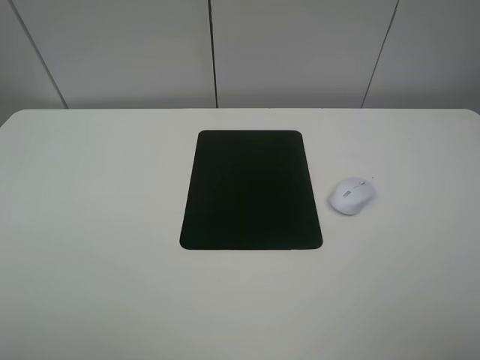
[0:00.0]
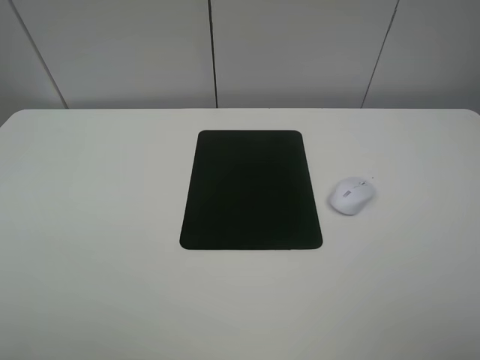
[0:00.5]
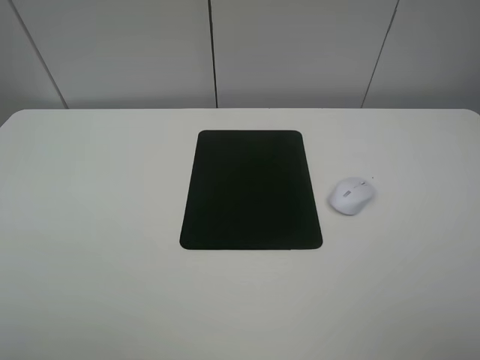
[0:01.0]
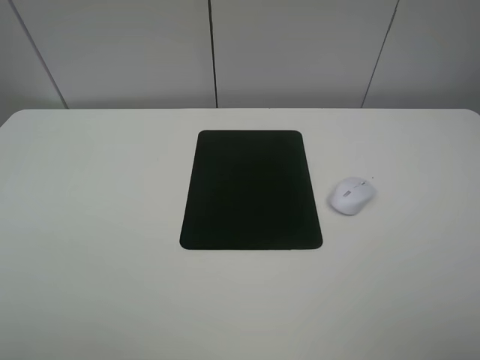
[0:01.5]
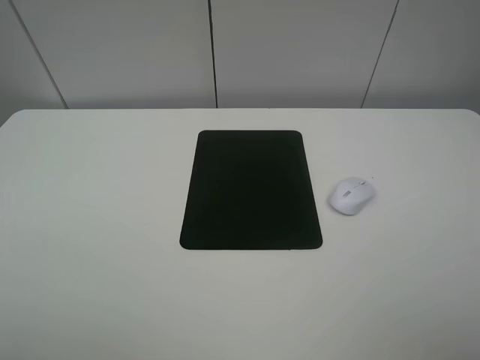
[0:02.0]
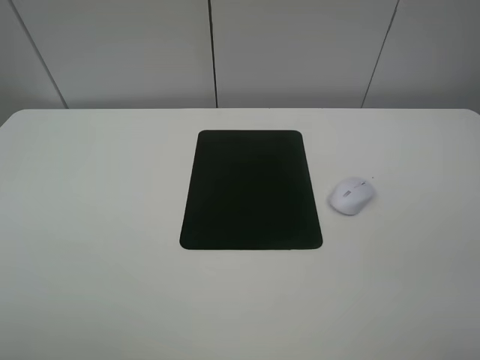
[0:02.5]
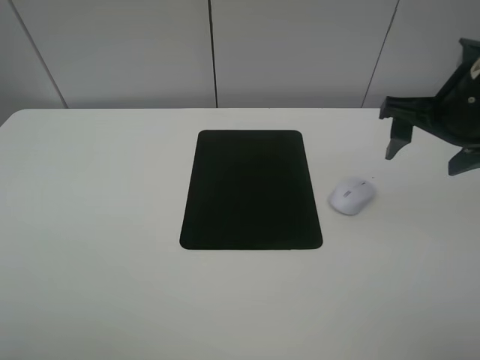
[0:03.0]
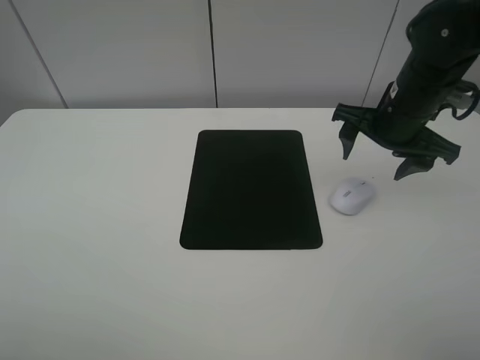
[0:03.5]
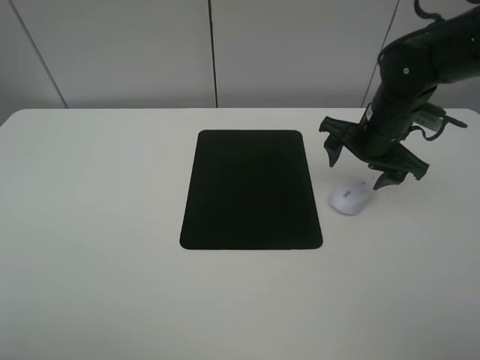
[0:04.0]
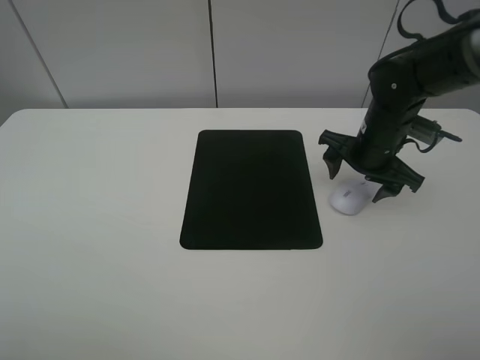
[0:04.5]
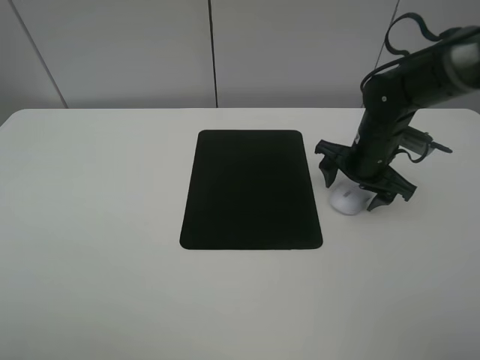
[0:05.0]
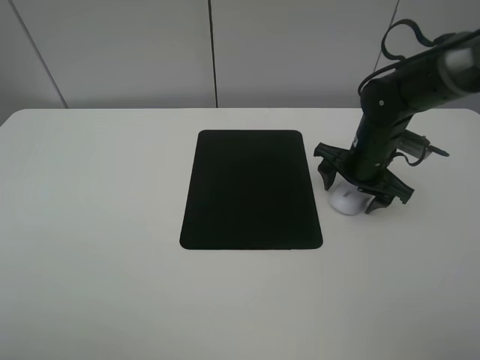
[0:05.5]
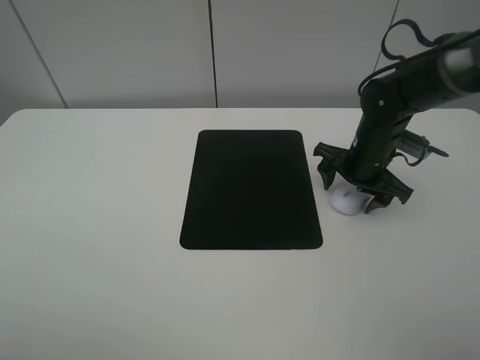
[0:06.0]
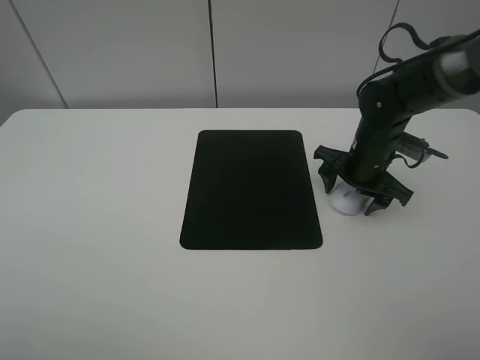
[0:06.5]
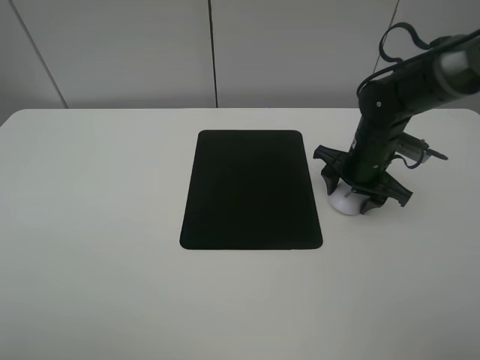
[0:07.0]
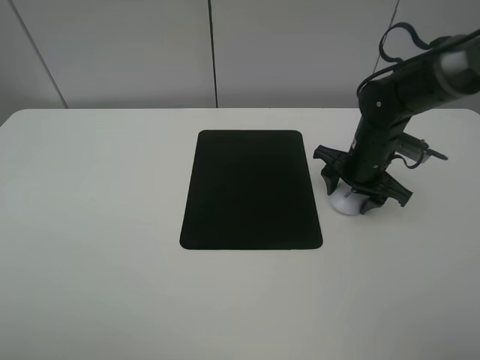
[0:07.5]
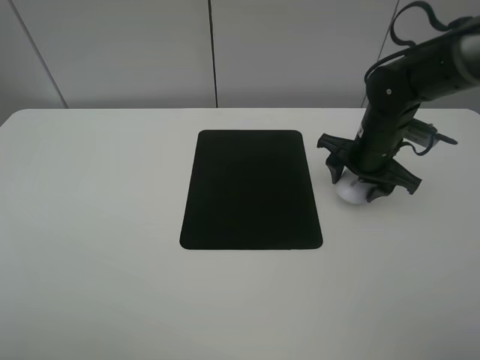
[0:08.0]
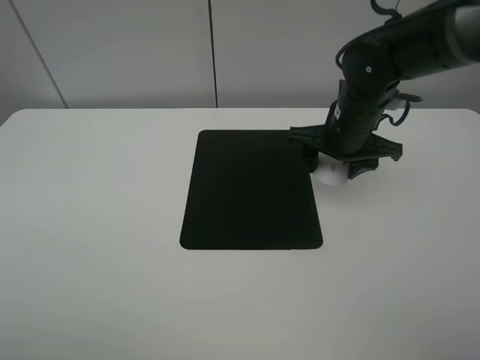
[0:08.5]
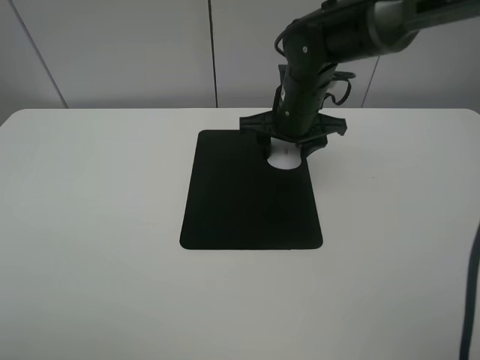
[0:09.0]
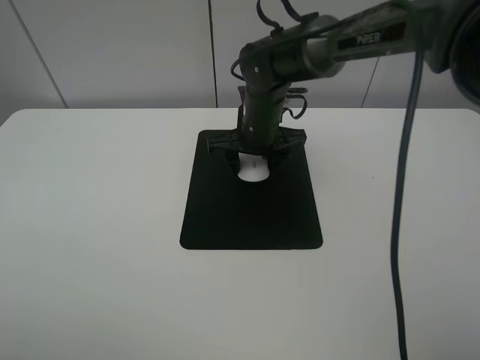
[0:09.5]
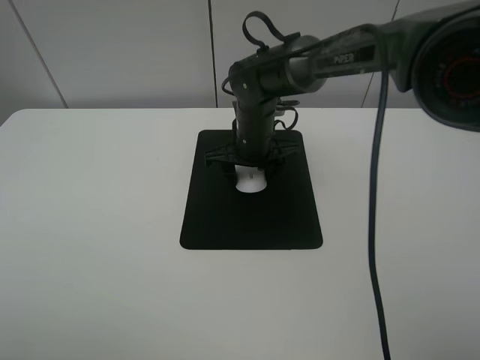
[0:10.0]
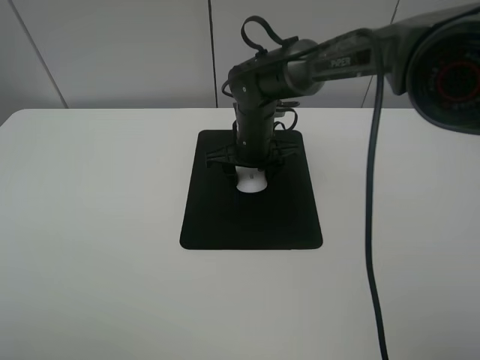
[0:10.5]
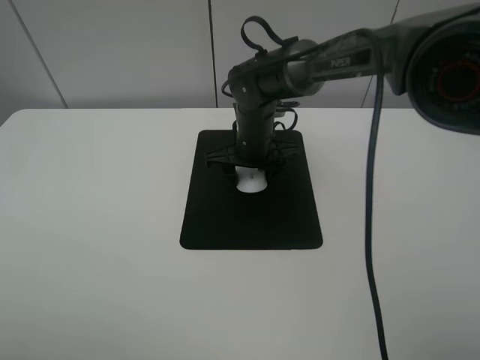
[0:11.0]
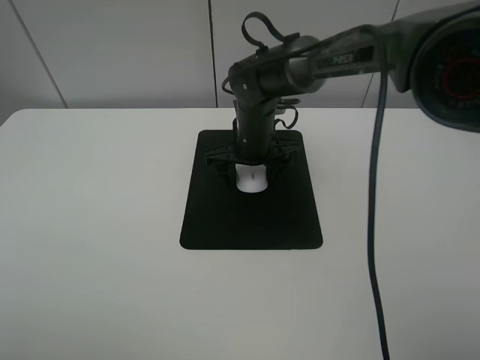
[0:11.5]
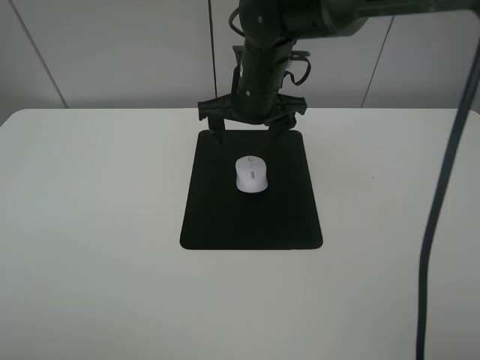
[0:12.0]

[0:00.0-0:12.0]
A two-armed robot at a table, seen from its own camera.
Step, 0:00.0 to 0:07.0: Grasp the mouse with the right gripper.
Step, 0:07.5 to 0:11.0: Place the mouse on the mouse mat with the right gripper.
0:00.0 to 0:02.0: The two grippers keep their place.
0:02.0 to 0:04.0: The right gripper is displaced forward and downward by approximately 35 cm.
0:04.0 to 0:06.0: There are only small adjustments of the grippers.
0:06.0 to 0:08.0: The right gripper closes.
0:08.0 to 0:10.0: The right gripper heads to the left, covering roughly 20 cm.
0:10.0 to 0:12.0: The right gripper shifts roughly 10 cm upward, and opens its fingers.

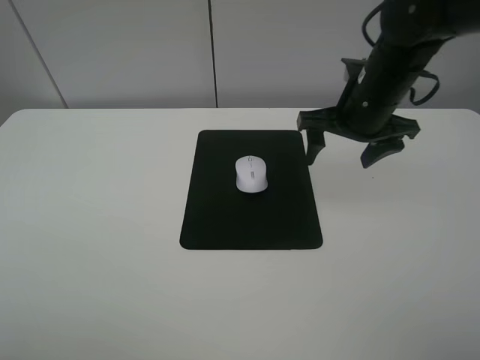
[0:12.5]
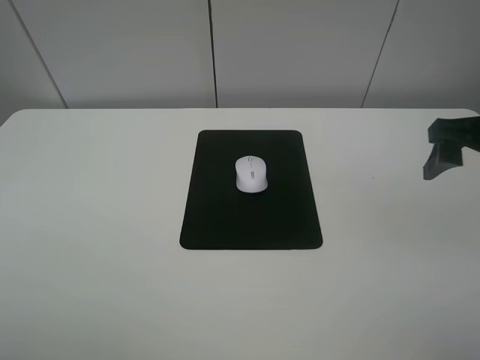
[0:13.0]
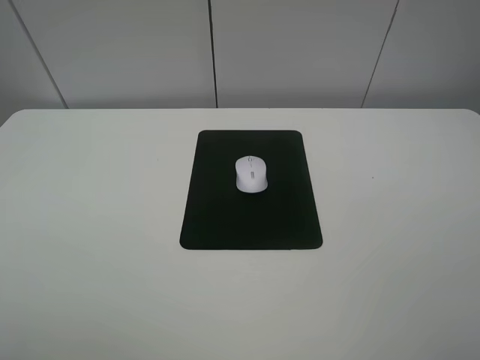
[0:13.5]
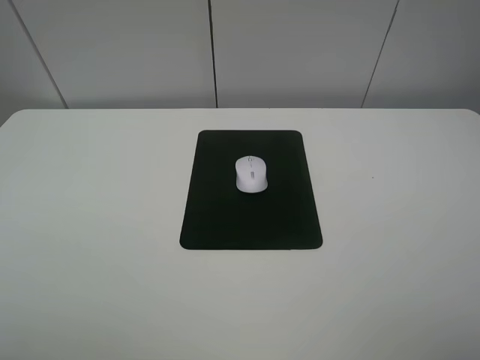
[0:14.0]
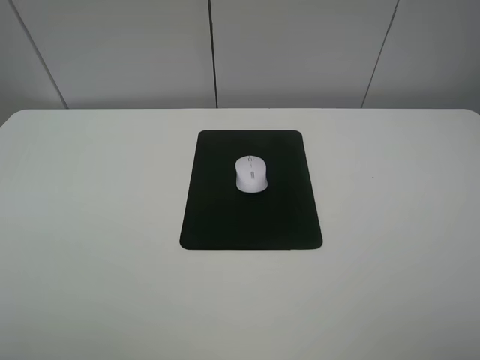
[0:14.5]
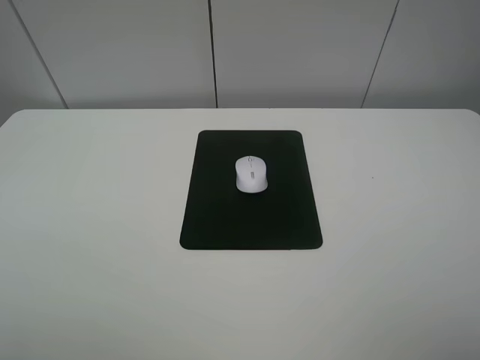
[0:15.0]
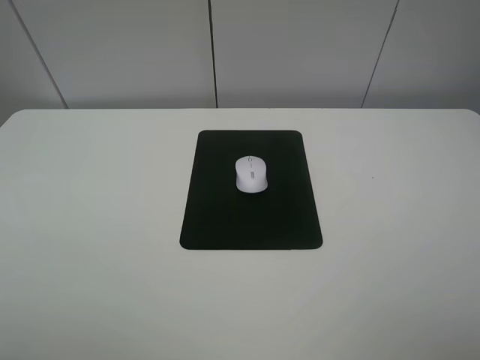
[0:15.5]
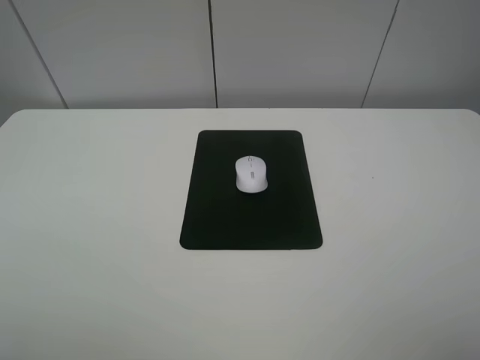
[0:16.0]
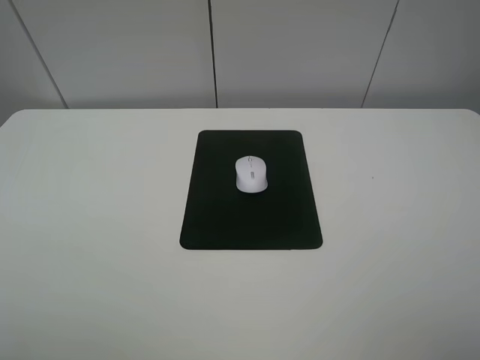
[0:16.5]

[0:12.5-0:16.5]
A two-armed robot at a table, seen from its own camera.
0:12.5 to 0:14.5: The right gripper shifts about 35 cm backward.

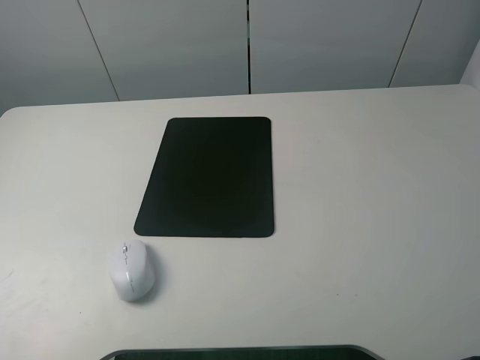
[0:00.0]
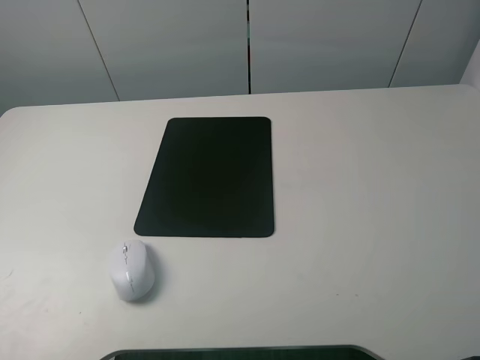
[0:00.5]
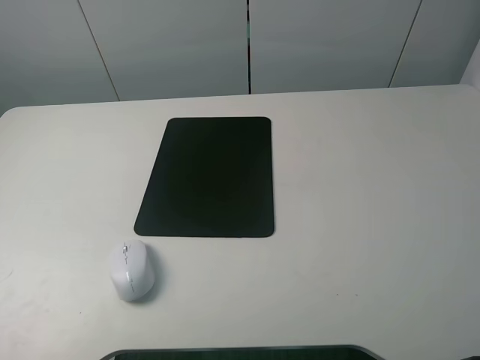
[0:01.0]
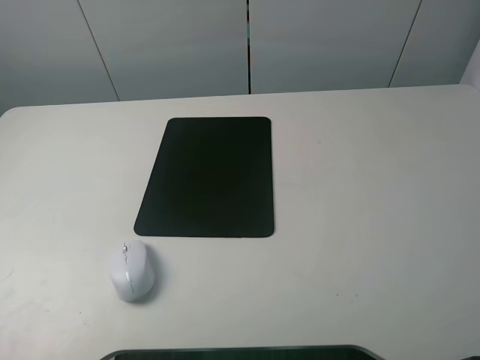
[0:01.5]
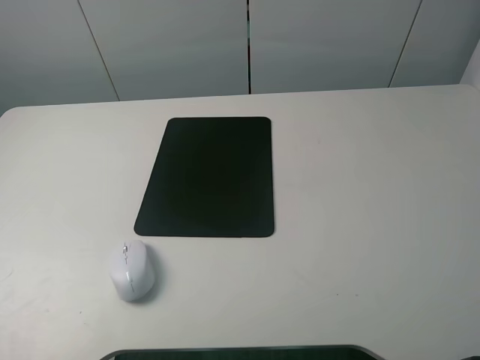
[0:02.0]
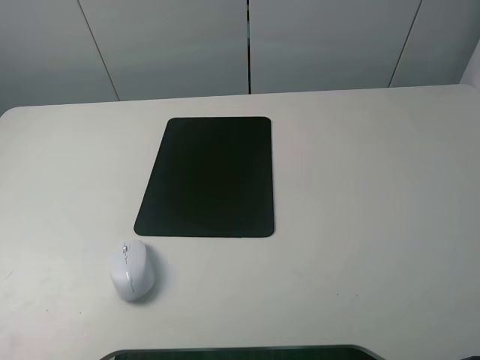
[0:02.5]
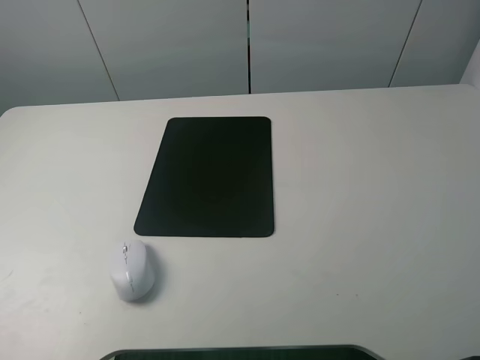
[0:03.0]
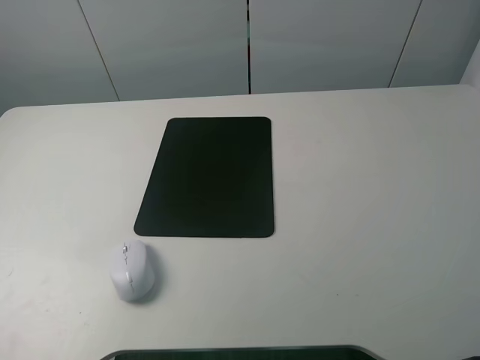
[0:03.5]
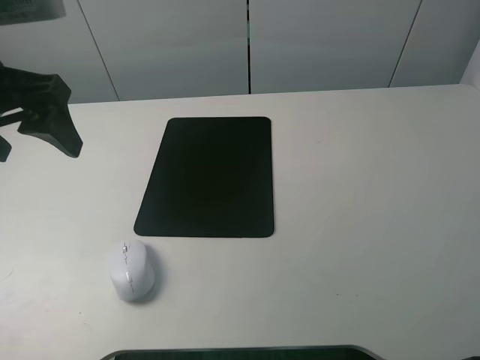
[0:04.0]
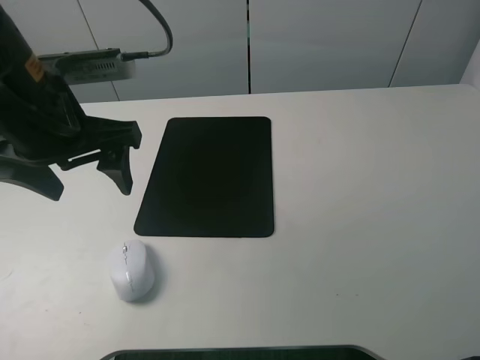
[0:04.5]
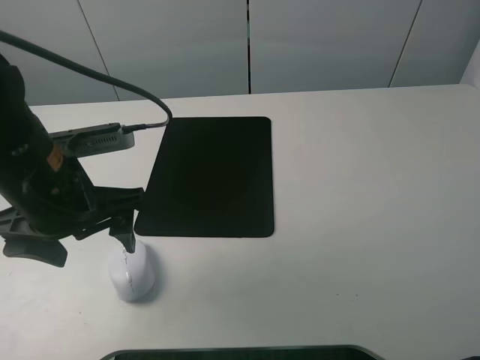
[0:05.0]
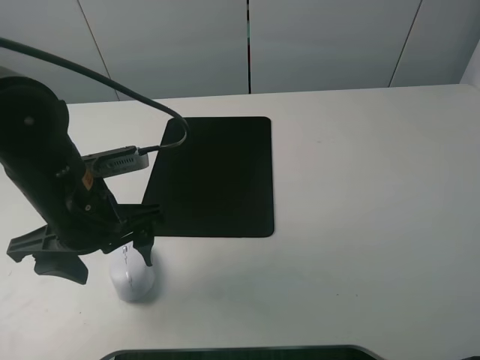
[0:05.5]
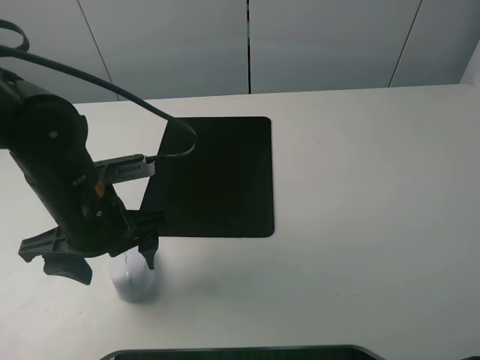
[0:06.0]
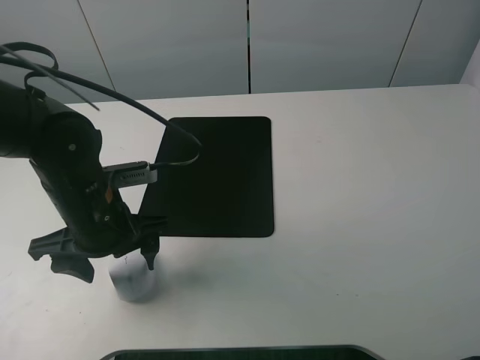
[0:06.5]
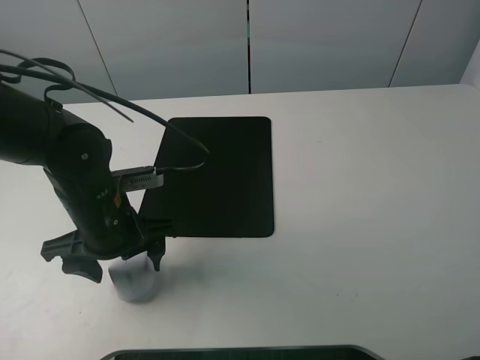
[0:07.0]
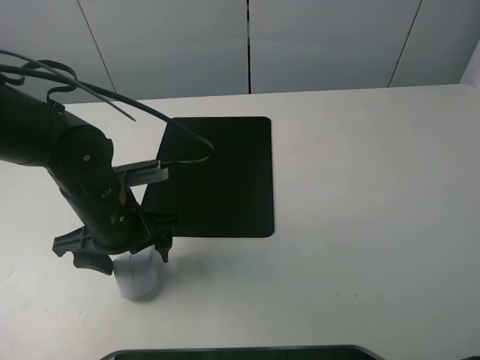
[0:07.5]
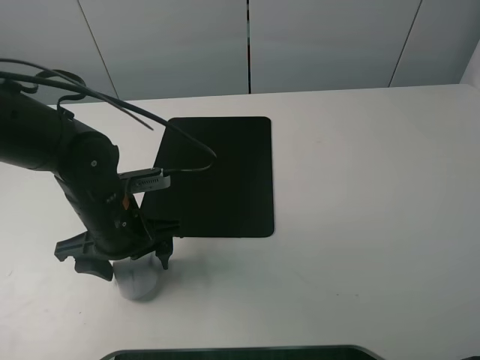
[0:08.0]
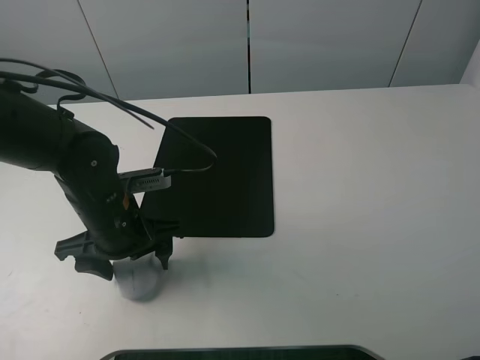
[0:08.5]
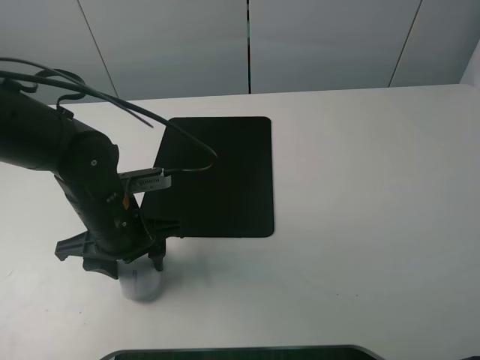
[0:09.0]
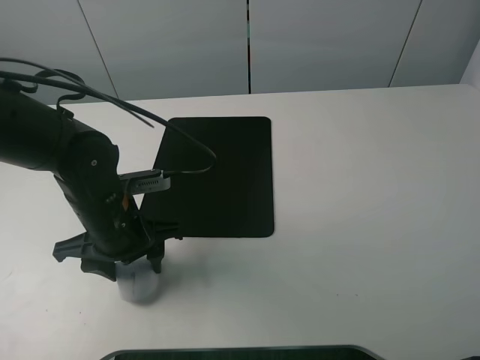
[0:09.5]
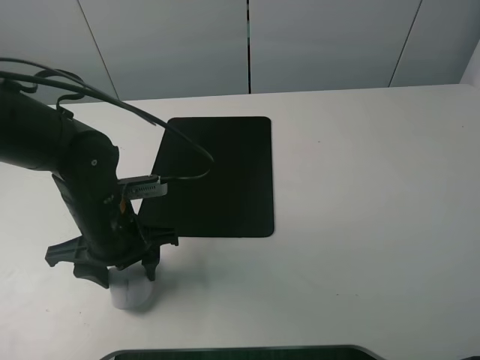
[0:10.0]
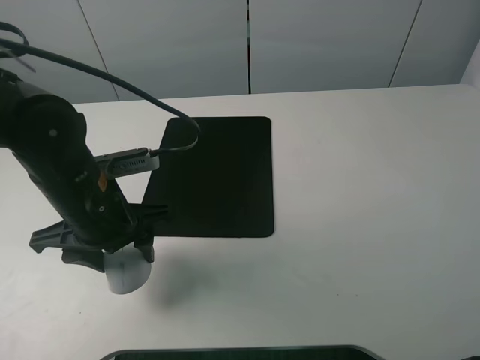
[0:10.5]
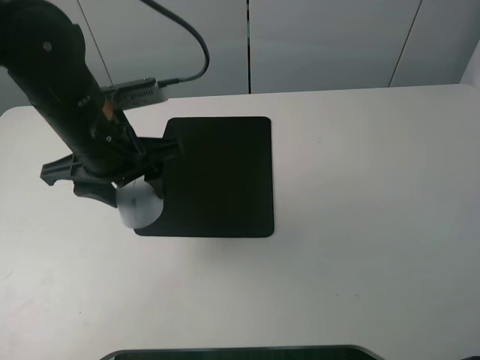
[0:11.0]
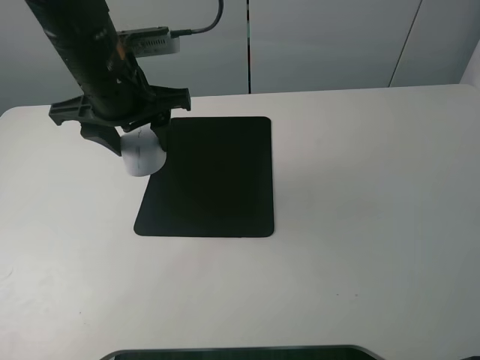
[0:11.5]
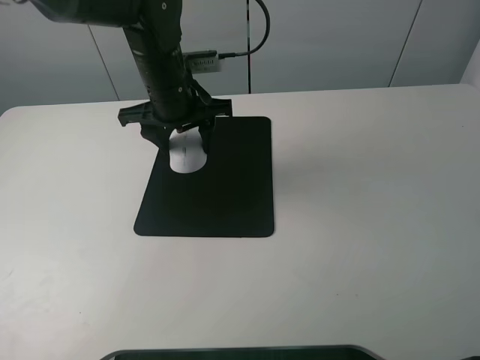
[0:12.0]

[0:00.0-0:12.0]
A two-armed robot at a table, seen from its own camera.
Step, 0:00.0 to 0:09.0: Grasp the mouse with the left gripper.
0:02.0 to 0:04.0: The left gripper shifts roughly 25 cm forward and to the right.
0:04.0 to 0:06.0: The left gripper shifts about 15 cm downward.
0:06.0 to 0:08.0: There are only small adjustments of the grippers.
0:08.0 to 0:10.0: The left gripper closes up.
0:10.0 to 0:12.0: The left gripper shifts approximately 20 cm forward, upward and to the right.
